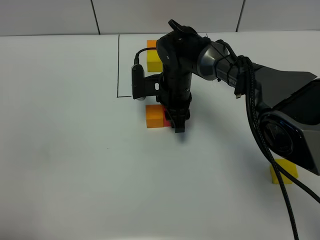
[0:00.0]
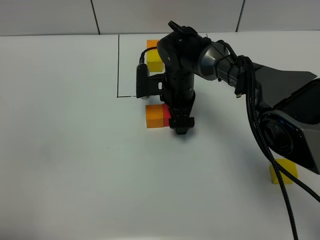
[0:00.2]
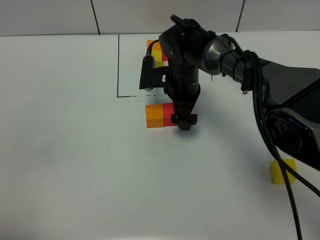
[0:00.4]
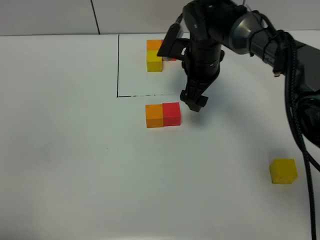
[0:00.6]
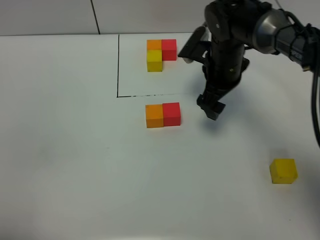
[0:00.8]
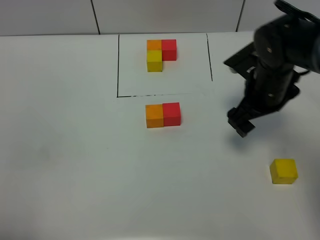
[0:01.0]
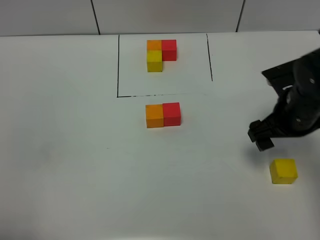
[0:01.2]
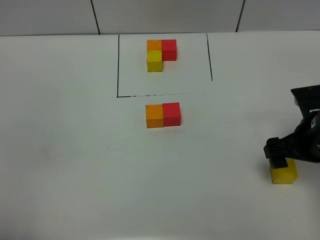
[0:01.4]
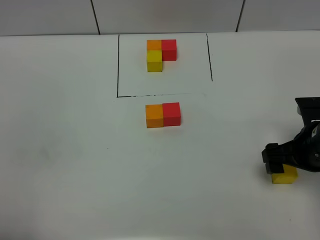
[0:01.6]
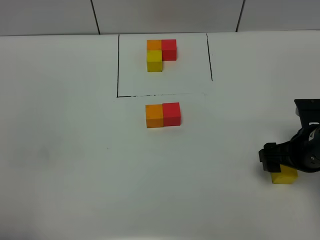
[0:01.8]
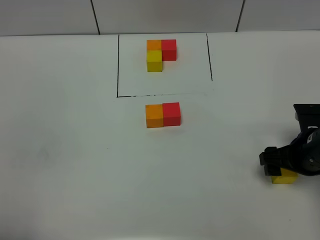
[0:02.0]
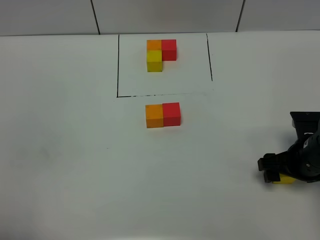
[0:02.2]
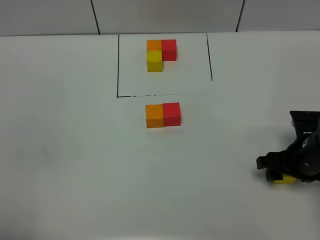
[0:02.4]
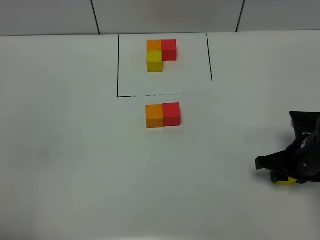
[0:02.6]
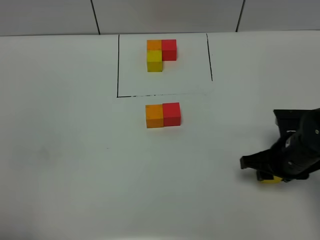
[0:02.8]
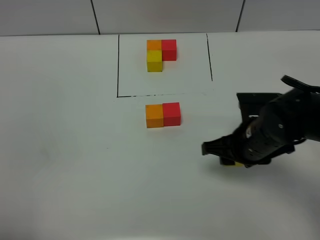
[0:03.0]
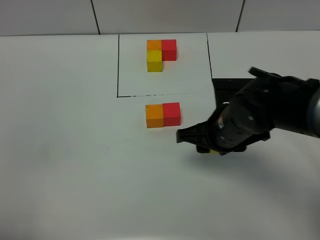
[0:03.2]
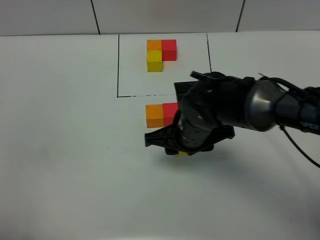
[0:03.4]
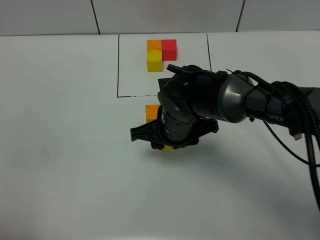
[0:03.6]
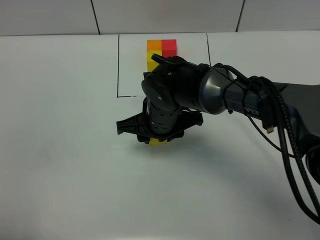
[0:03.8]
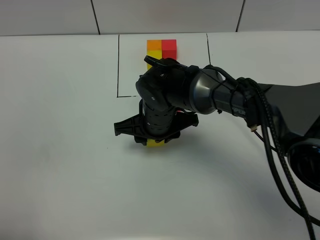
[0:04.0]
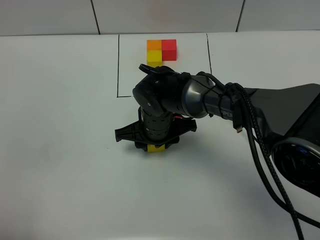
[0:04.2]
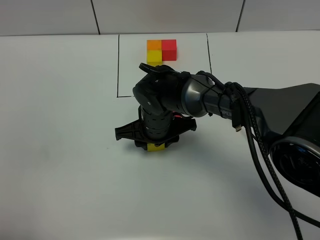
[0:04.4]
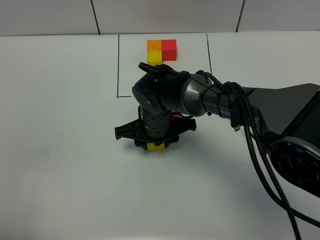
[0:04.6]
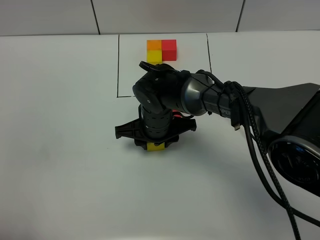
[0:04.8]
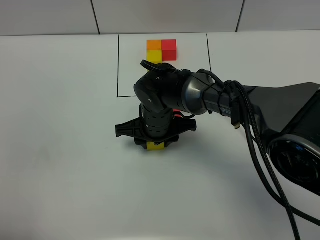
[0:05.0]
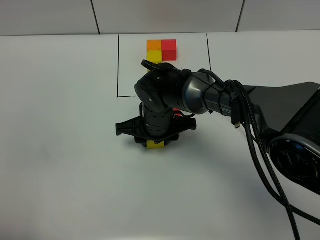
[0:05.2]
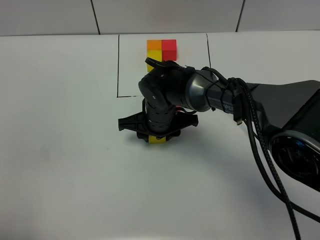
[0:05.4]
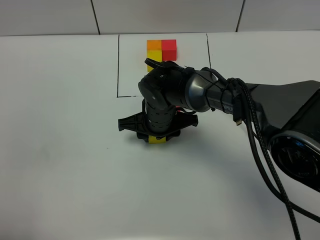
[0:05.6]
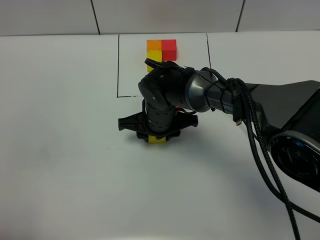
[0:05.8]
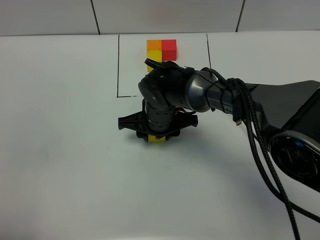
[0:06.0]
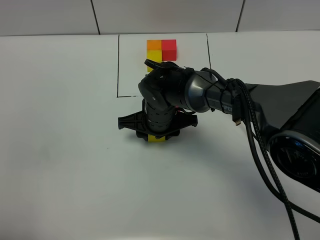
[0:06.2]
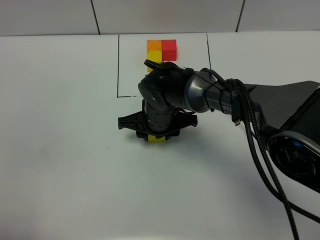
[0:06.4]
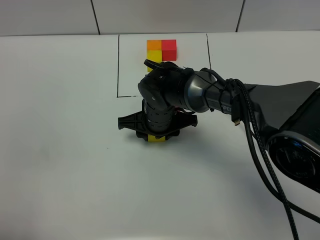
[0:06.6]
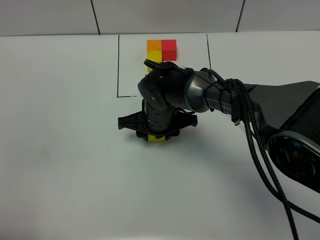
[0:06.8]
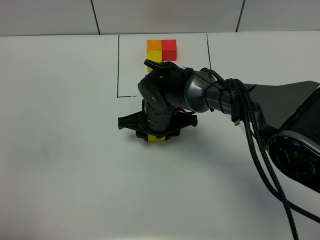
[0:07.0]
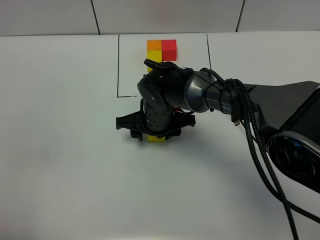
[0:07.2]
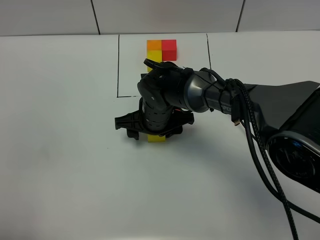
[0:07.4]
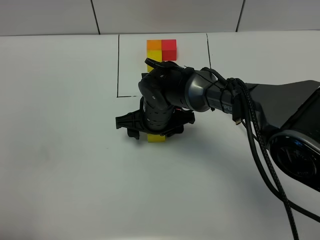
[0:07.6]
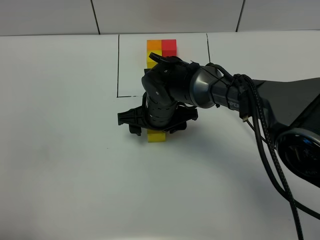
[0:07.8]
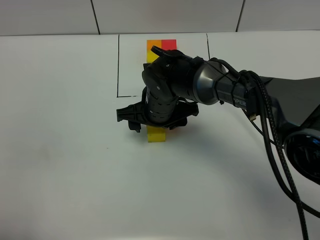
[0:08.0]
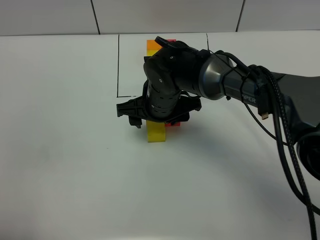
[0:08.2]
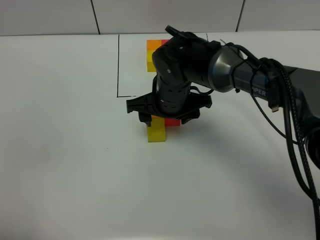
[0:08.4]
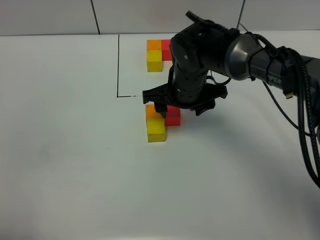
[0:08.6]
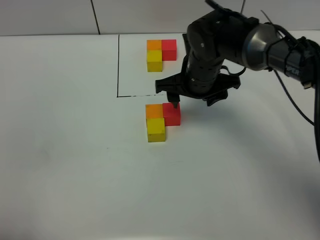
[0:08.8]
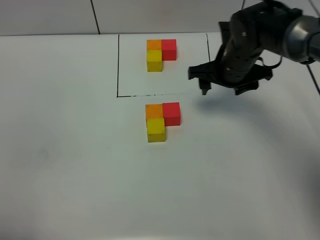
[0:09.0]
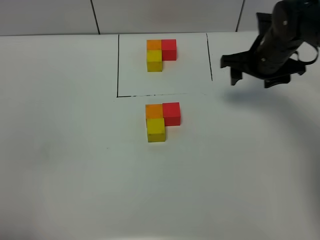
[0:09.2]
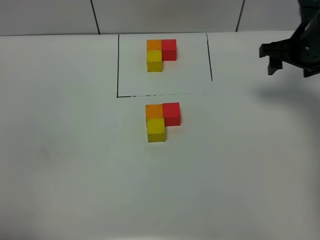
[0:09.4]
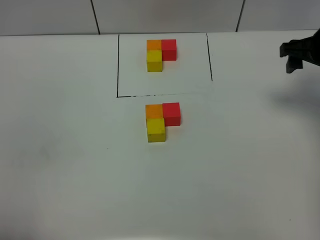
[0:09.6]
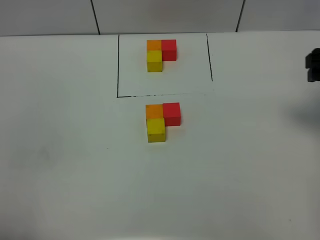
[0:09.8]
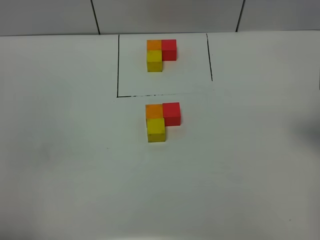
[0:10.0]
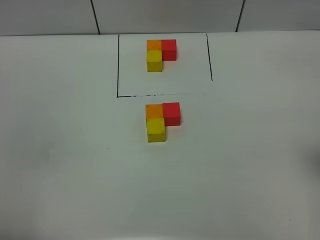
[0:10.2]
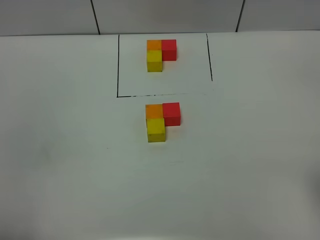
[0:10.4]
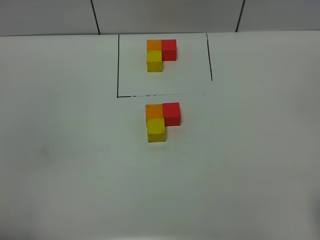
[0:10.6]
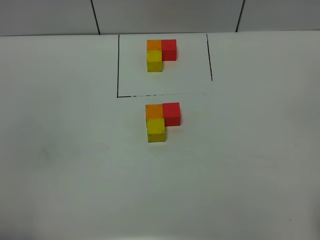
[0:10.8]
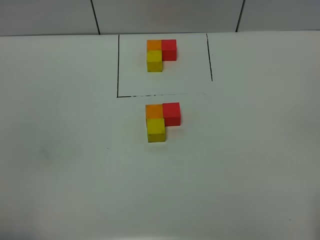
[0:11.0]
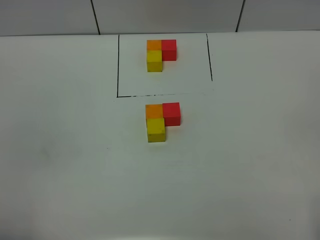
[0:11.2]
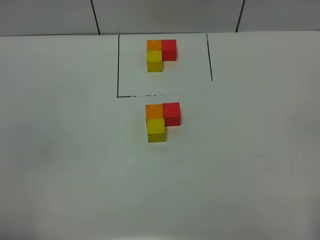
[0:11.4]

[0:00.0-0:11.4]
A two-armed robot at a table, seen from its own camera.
Task of the whole recording: According to the building block template in front, assemble the scattered blocks together.
Step, 0:00.2 to 0:07.0: Put the yellow build block on the behind of the orange build block.
0:00.0 to 0:01.4: The right gripper moves to the right and backward, approximately 30 cm, and opens its fingers.
0:01.4 to 0:02.8: The right gripper moves approximately 5 cm, and closes.
0:02.8 to 0:04.2: The right gripper shifts approximately 25 cm to the left.
0:04.2 to 0:05.6: The grippers make only small movements.
0:05.6 to 0:07.2: Neither gripper changes place.
0:07.2 to 0:08.6: The right gripper goes about 10 cm upward and to the right.
0:08.6 to 0:10.0: The right gripper moves to the right, upward and backward, approximately 30 cm, and opens.

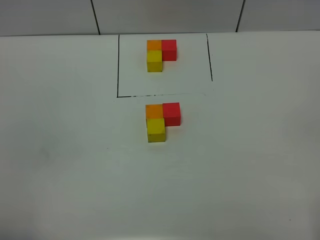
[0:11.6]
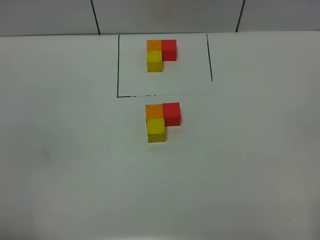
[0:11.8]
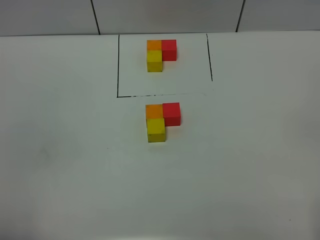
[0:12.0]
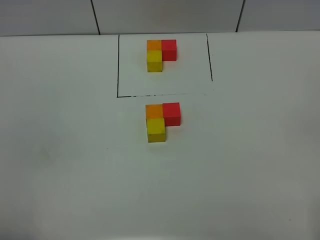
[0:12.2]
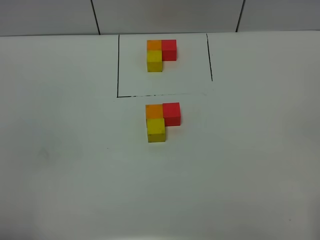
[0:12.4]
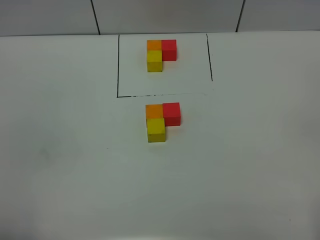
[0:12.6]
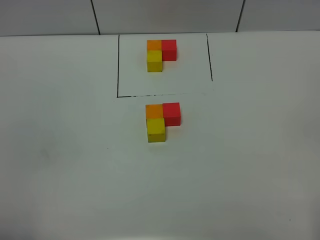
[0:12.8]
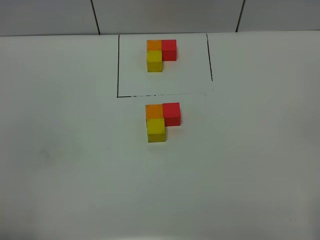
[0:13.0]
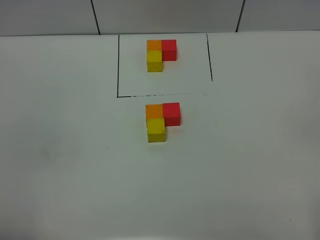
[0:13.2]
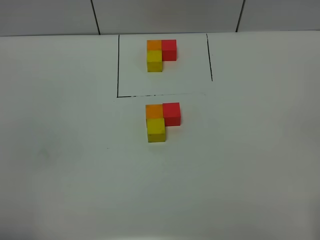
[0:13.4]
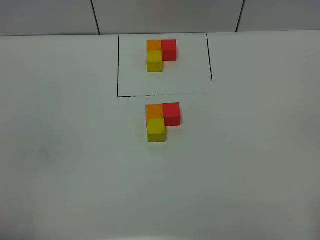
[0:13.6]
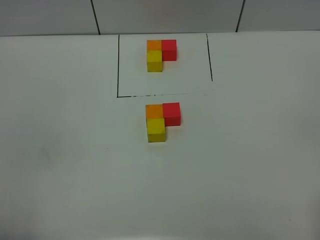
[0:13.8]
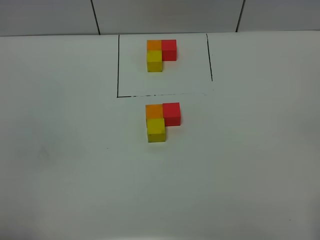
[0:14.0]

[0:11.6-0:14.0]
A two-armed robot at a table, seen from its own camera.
Task of the whole recording: According to the building block template in front, assemble the scattered blocks together.
0:11.6 to 0:14.0: Both grippers stay about where they are.

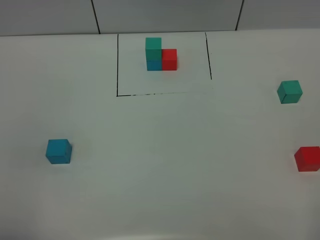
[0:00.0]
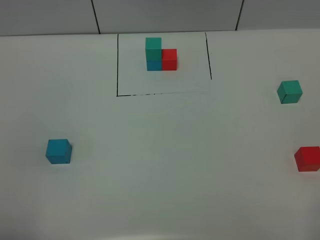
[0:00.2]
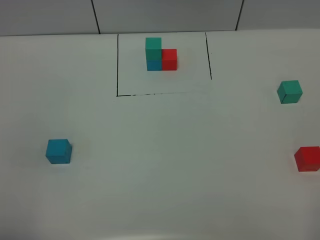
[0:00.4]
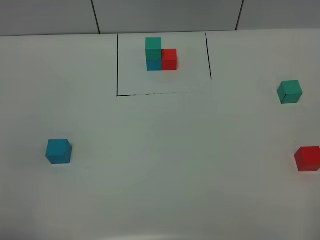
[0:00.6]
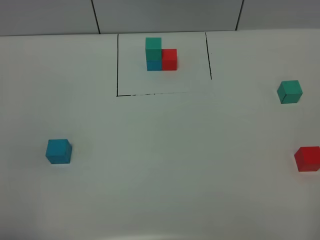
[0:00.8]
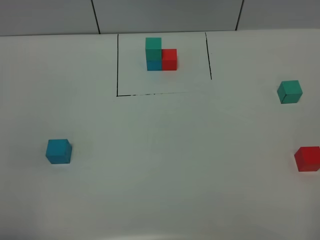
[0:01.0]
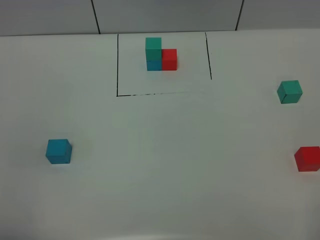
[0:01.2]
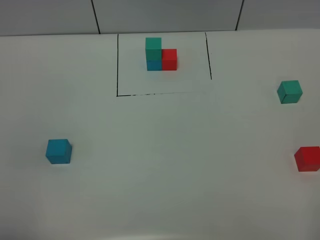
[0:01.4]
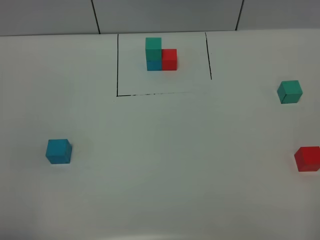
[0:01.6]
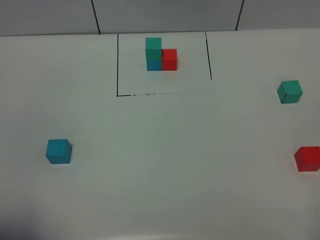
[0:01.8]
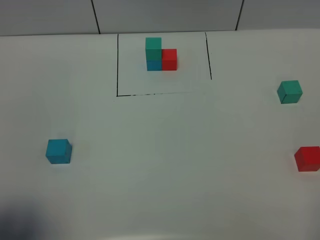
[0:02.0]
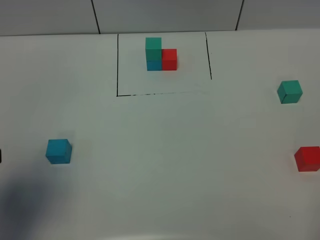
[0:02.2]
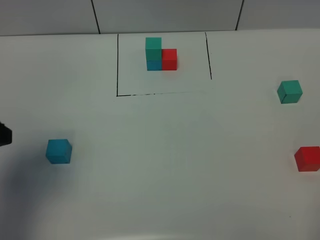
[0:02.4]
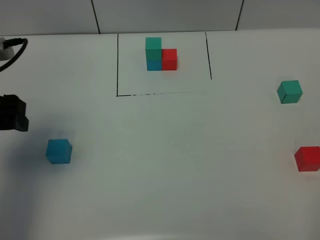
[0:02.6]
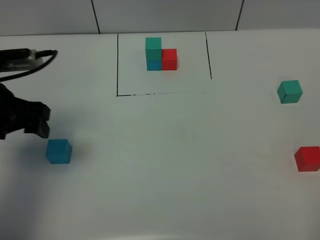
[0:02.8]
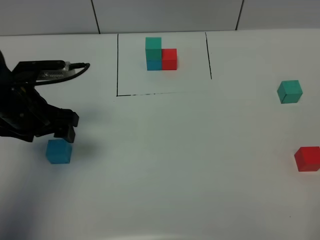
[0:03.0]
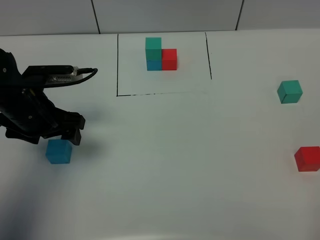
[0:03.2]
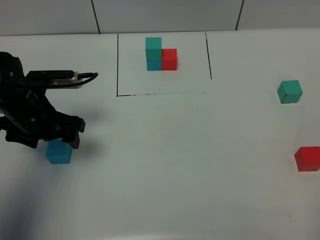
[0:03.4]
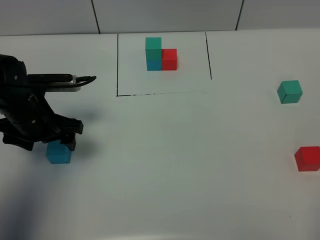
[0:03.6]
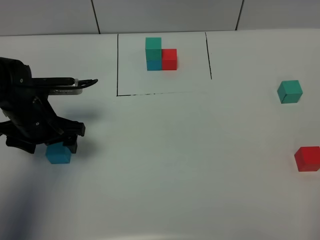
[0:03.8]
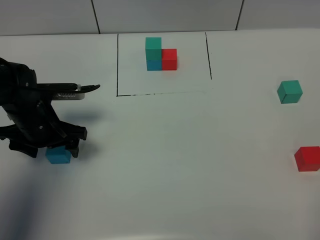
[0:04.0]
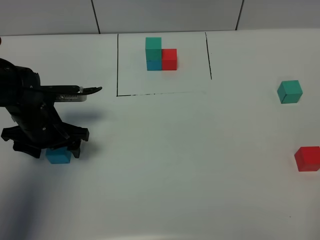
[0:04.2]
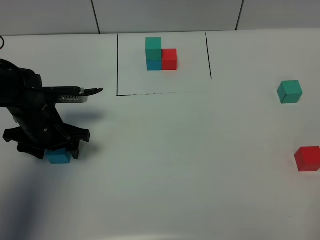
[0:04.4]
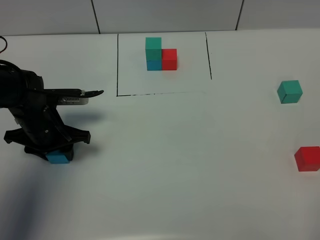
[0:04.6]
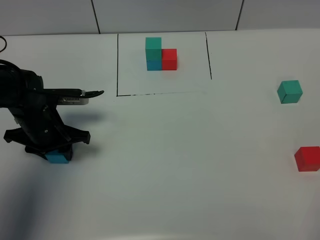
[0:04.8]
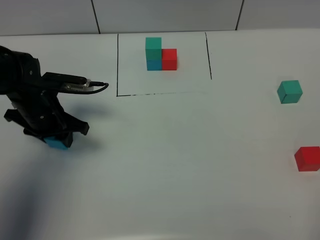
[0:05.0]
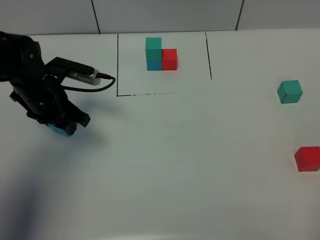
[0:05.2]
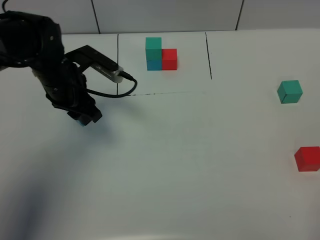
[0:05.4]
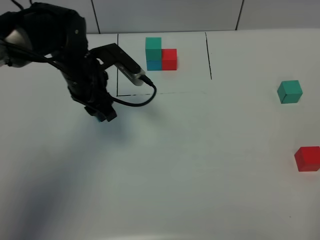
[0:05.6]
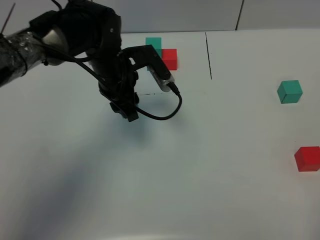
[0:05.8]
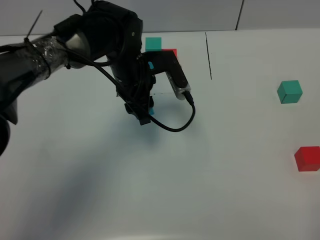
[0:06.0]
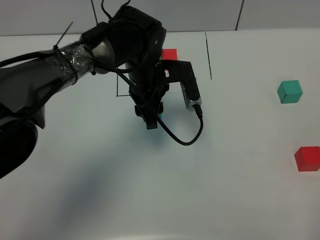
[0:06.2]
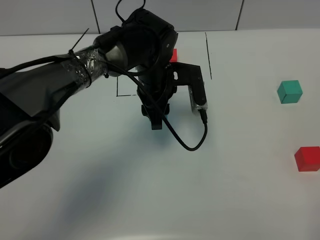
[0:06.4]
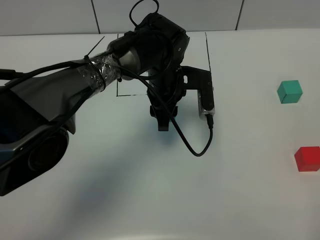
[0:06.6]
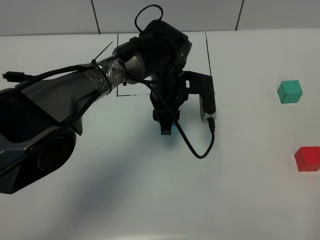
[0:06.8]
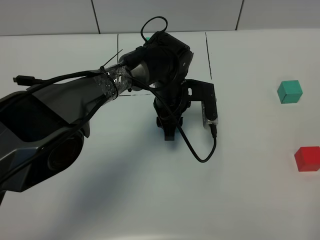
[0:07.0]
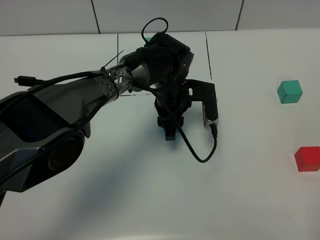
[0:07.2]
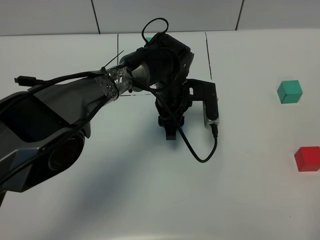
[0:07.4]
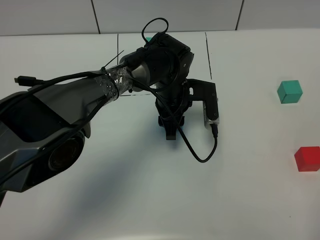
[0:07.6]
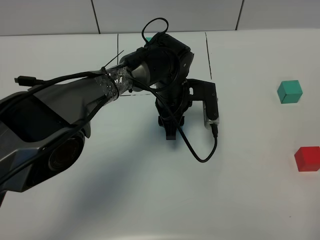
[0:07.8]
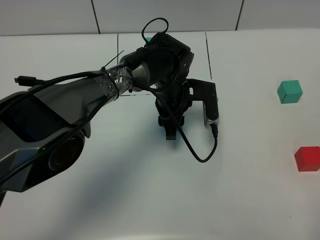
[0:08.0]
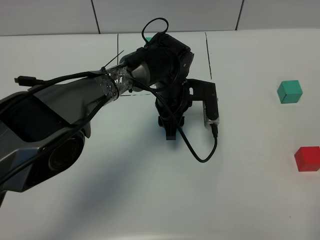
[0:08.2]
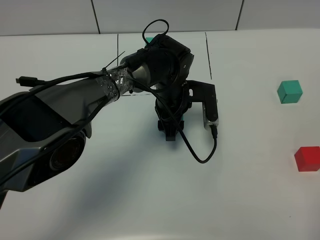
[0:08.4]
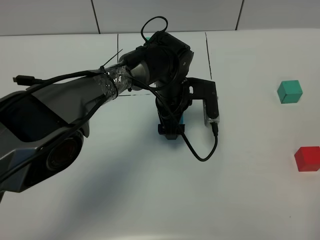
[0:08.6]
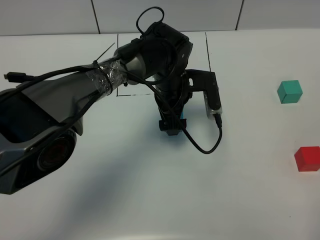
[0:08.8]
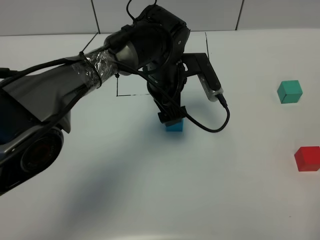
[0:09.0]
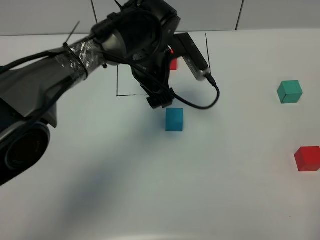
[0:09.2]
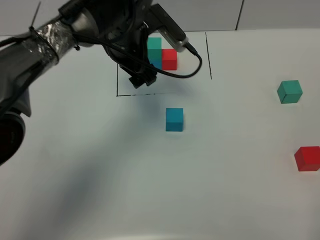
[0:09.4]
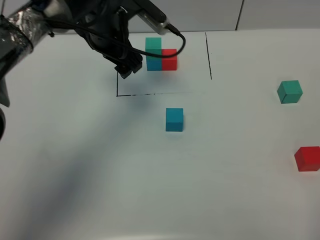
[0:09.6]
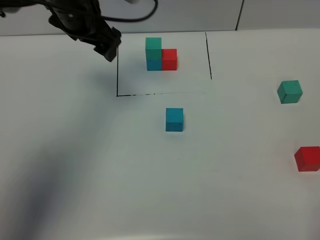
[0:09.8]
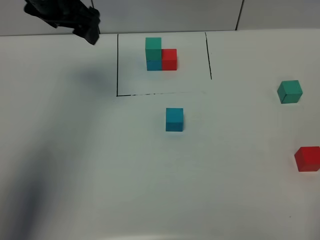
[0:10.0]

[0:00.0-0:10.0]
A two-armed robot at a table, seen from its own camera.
Task of the whole recording: According to the building block template in front, assemble the scattered blocks together.
Step, 0:00.0 to 0:08.4: Put the blue build block in the center of the table.
0:00.0 to 0:01.4: The two grippers keep their place.
0:01.4 to 0:02.8: The left gripper heads forward, covering about 30 cm.
0:02.8 to 0:04.2: The left gripper heads downward, covering some 10 cm.
0:04.2 to 0:05.8: The left gripper travels to the right, forward and upward by some 15 cm, and closes.
0:05.8 to 0:07.2: The left gripper travels to the right and downward by approximately 15 cm.
0:07.2 to 0:08.6: The left gripper opens up.
0:08.6 to 0:10.0: The left gripper moves to the left and upward, roughly 30 cm.
